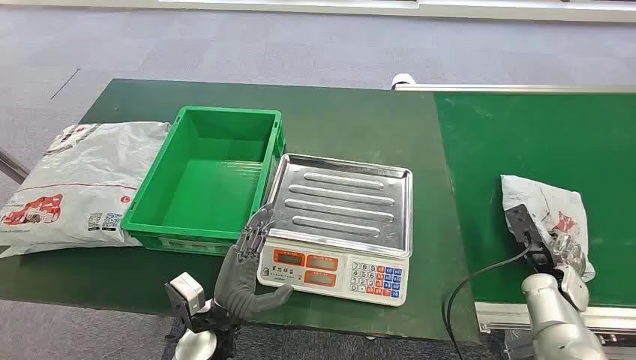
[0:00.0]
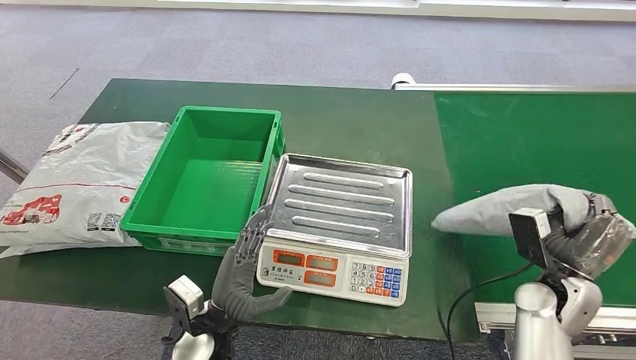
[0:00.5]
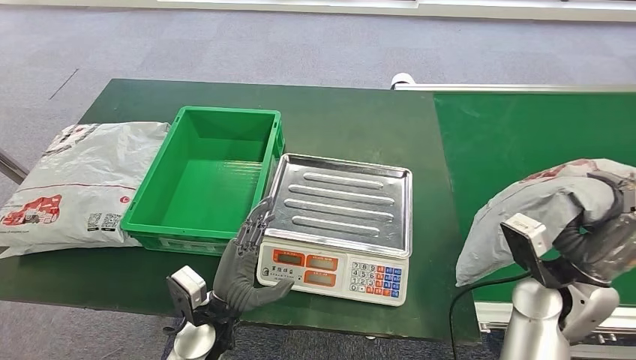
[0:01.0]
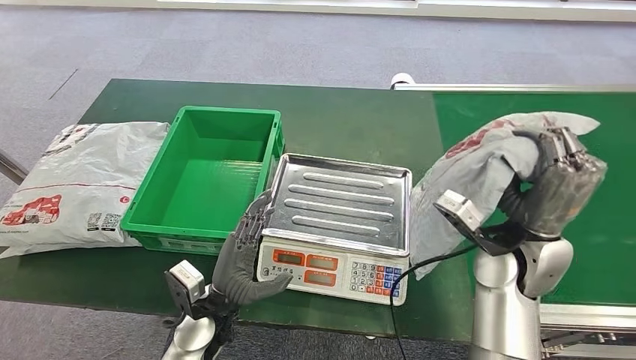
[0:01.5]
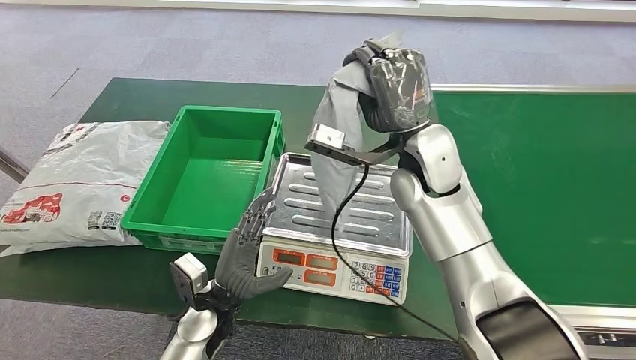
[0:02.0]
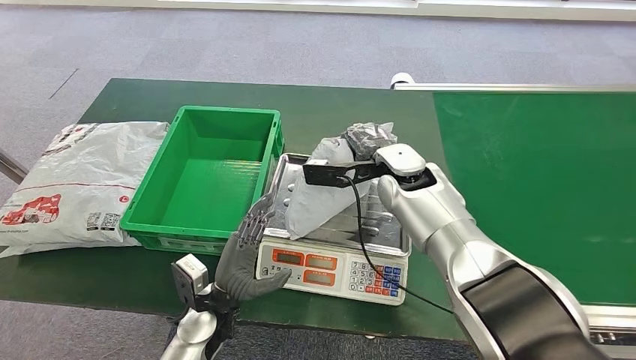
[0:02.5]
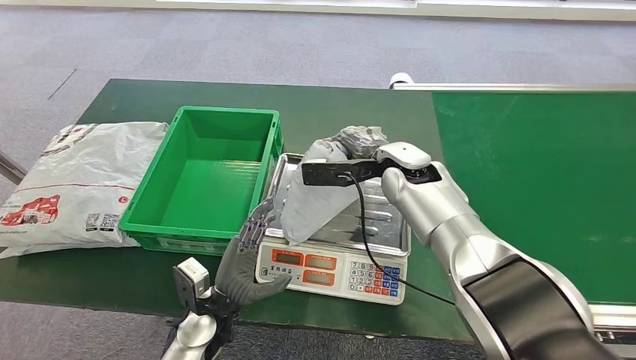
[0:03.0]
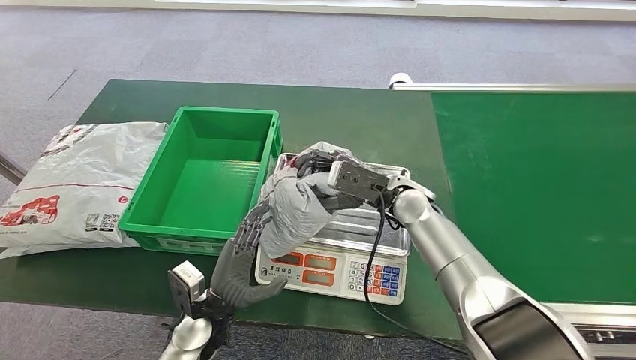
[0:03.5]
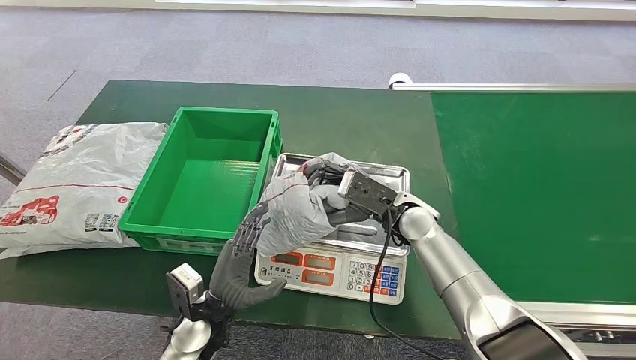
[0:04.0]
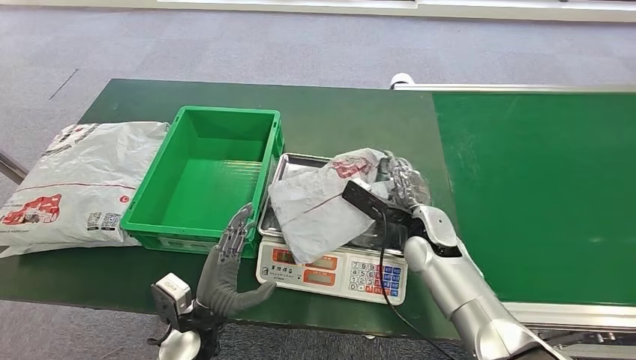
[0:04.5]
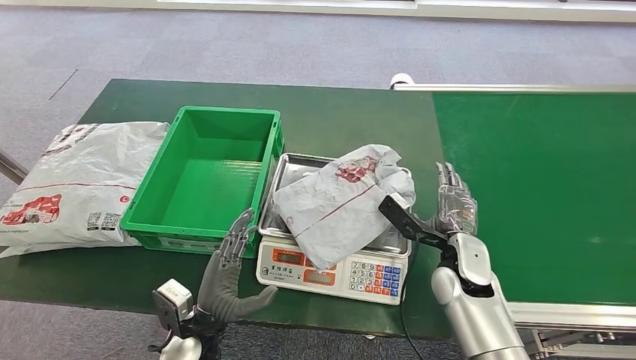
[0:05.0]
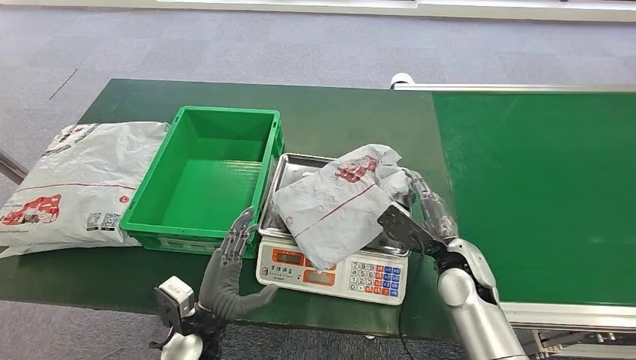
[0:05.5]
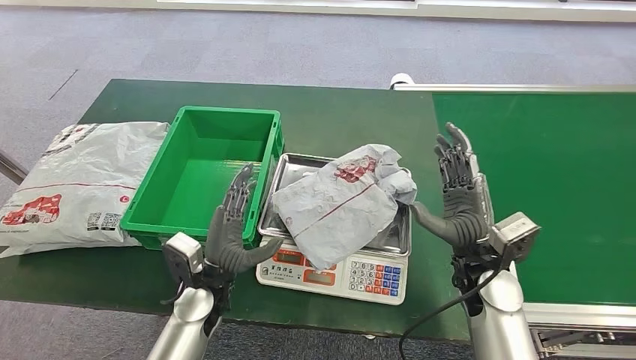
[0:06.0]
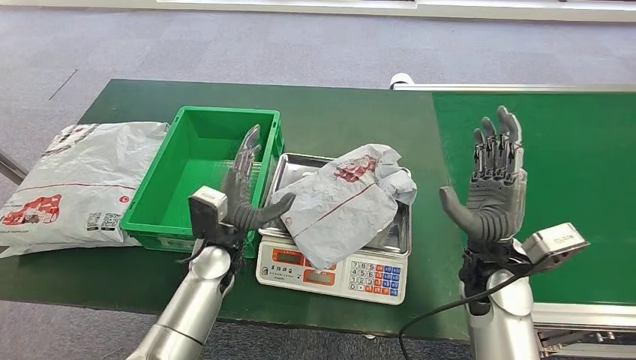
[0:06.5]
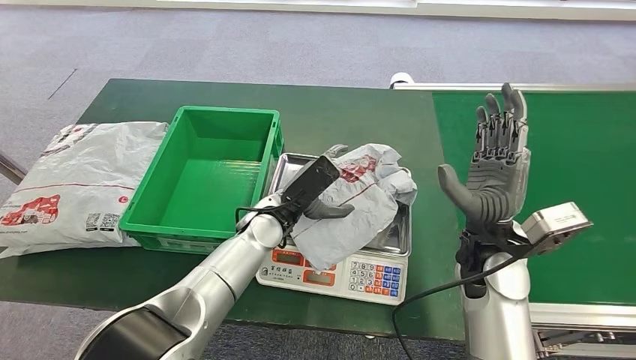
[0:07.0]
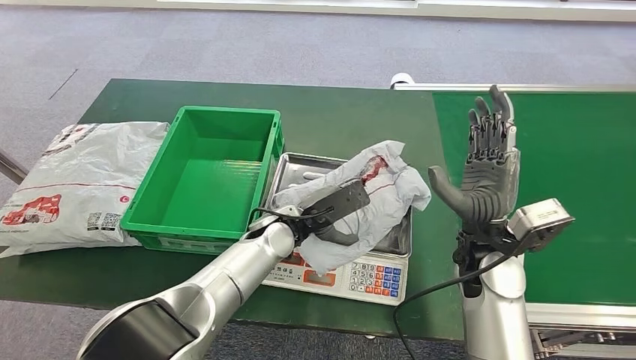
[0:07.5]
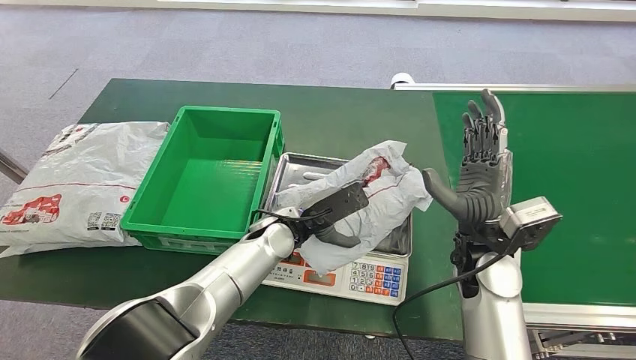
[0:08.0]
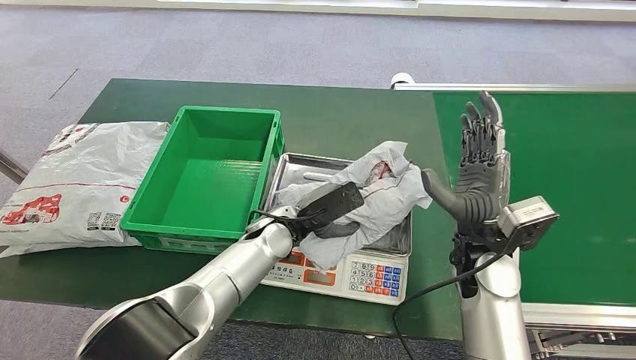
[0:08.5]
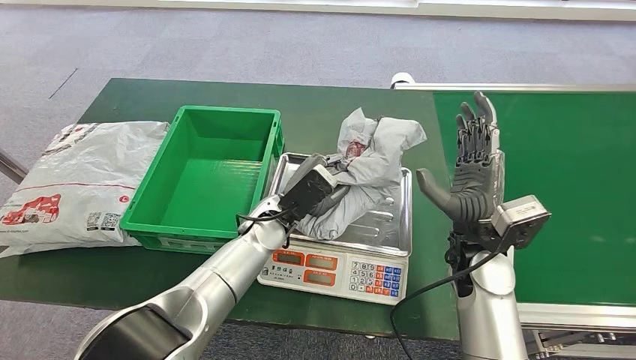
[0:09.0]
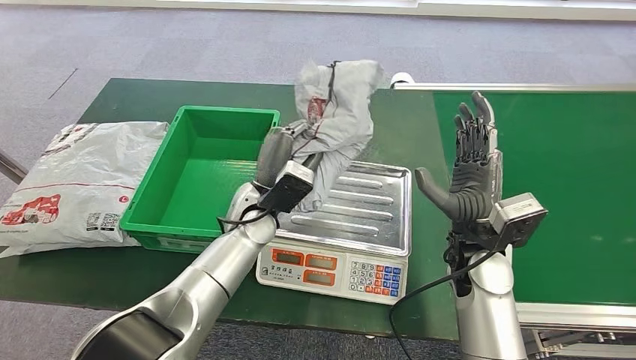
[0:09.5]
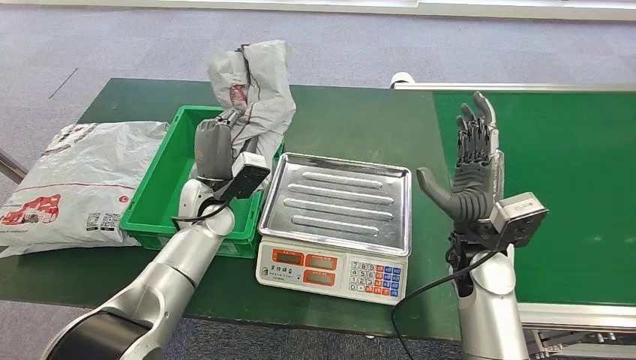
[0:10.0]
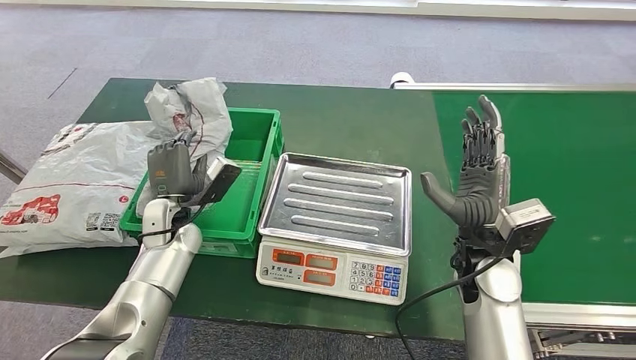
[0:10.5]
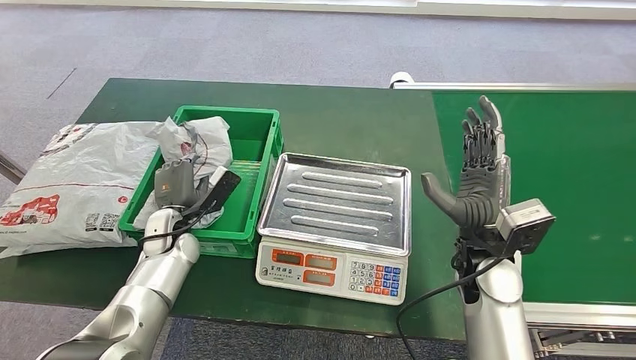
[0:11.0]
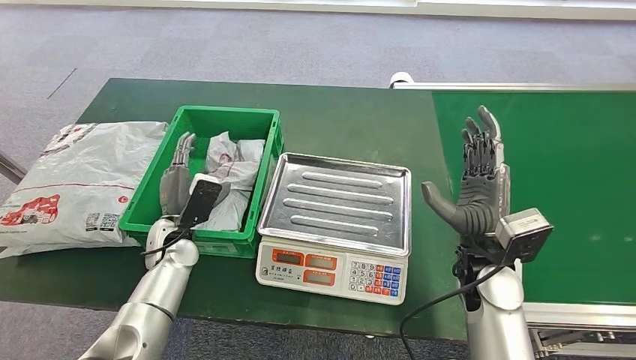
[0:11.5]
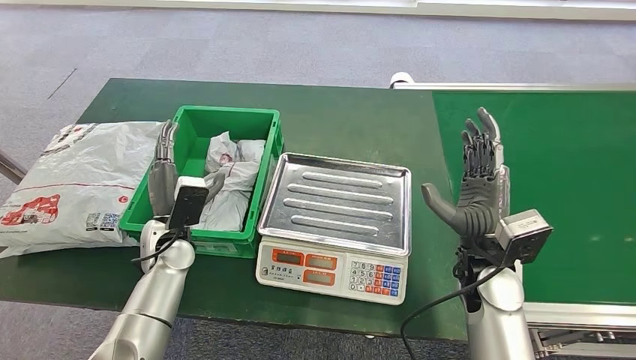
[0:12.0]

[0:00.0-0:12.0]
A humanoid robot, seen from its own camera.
Step, 0:00.0 to 0:01.0: Take the parcel off the conveyor belt.
Step, 0:01.5 to 0:05.5: Place the parcel onto the inbound machine.
Step, 0:06.0 to 0:10.0: Pick up the parcel from the inbound machine.
0:04.0 to 0:06.0: The right hand shifts about 15 cm to the right and backward; the left hand moves roughly 5 cm.
0:06.0 to 0:08.0: The left hand heads to the right and forward, covering approximately 15 cm.
0:08.0 to 0:10.0: The left hand heads to the left, covering approximately 15 cm.
0:10.0 to 0:12.0: The left hand moves to the left, downward and backward, approximately 10 cm.

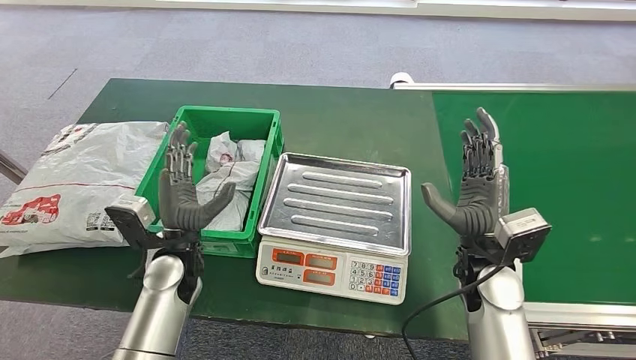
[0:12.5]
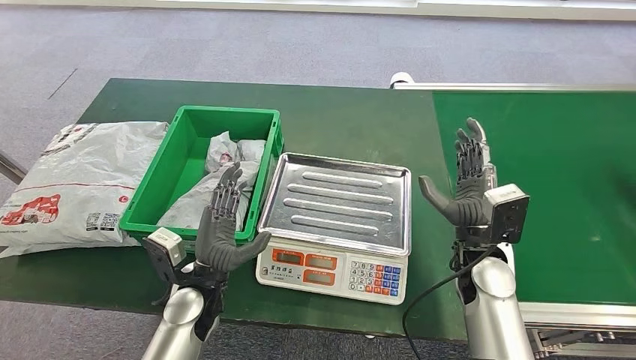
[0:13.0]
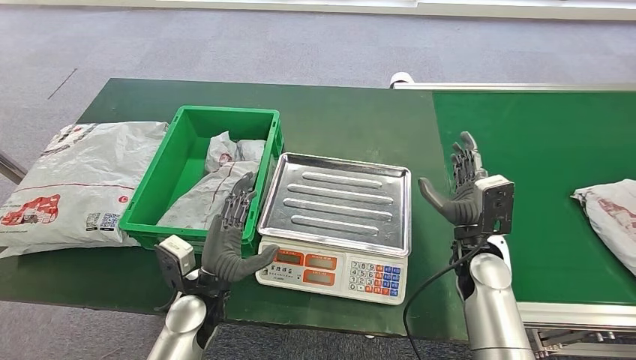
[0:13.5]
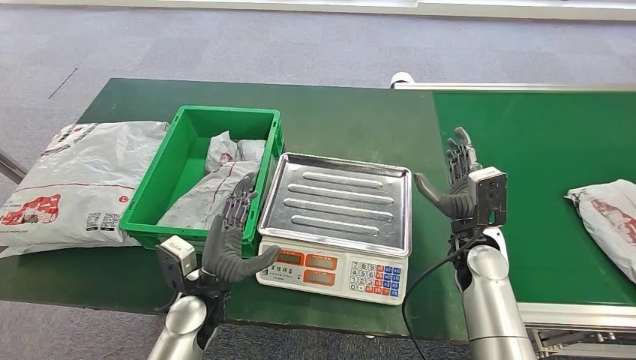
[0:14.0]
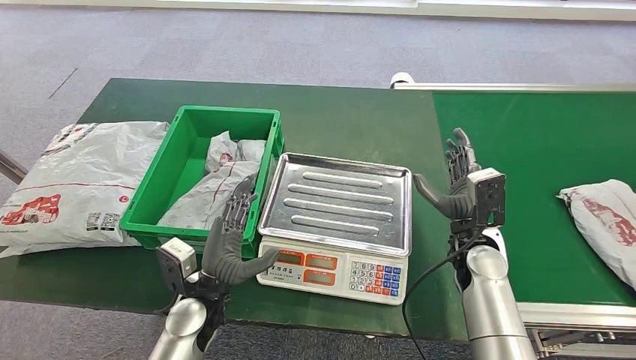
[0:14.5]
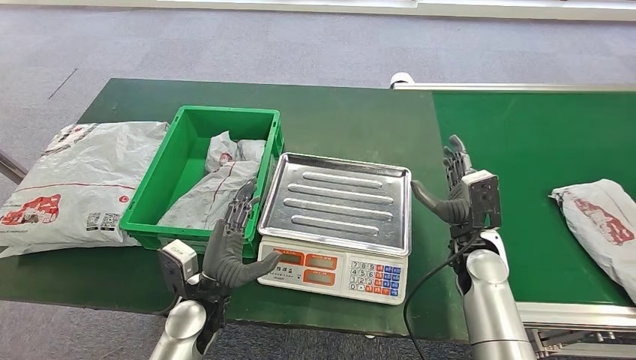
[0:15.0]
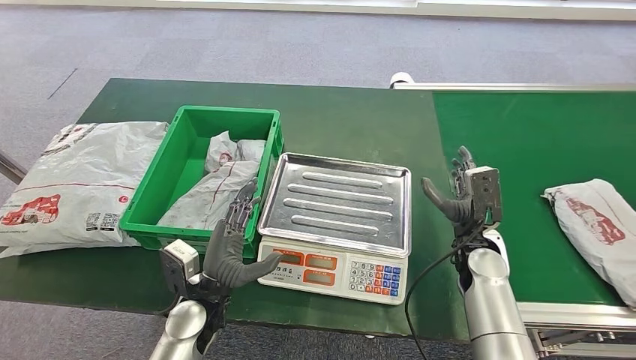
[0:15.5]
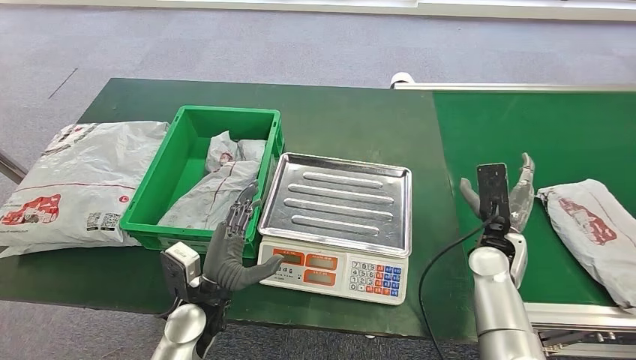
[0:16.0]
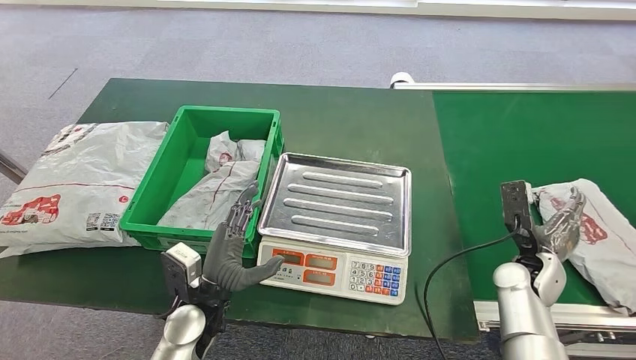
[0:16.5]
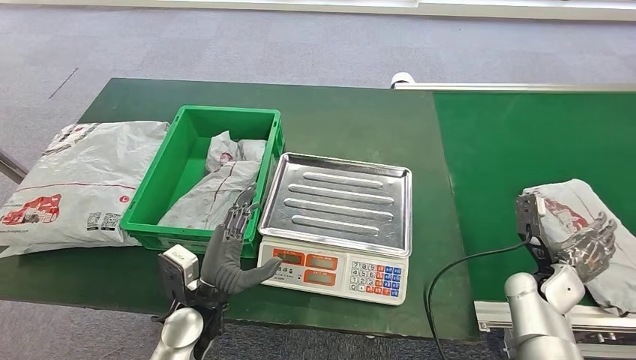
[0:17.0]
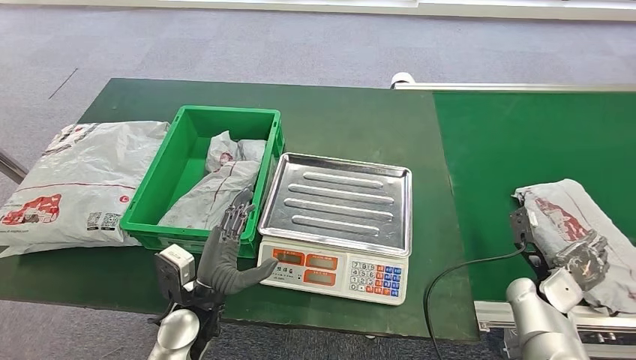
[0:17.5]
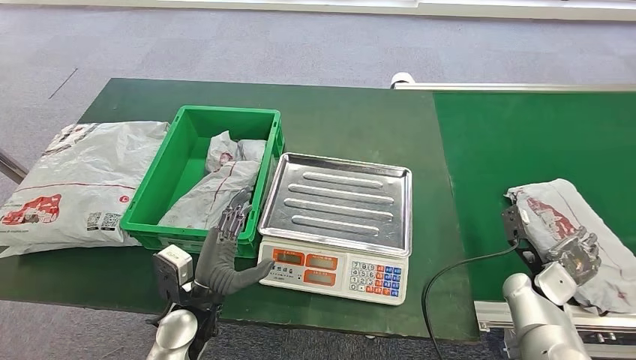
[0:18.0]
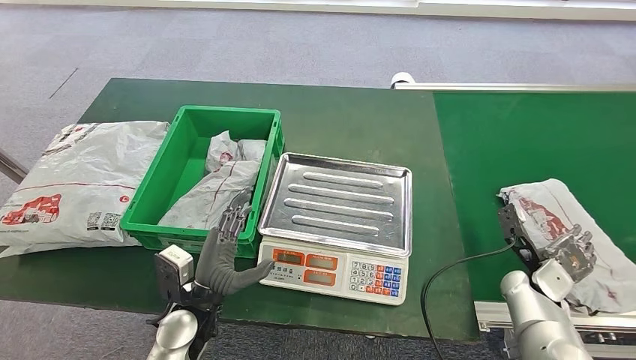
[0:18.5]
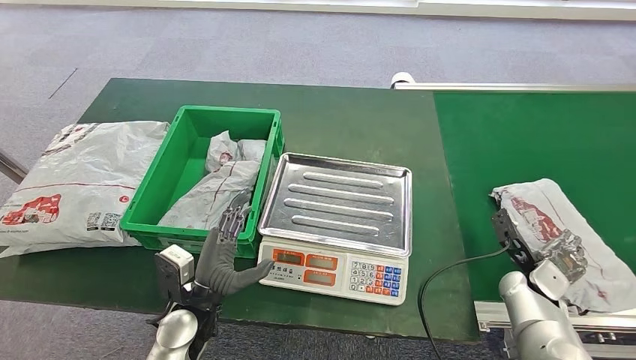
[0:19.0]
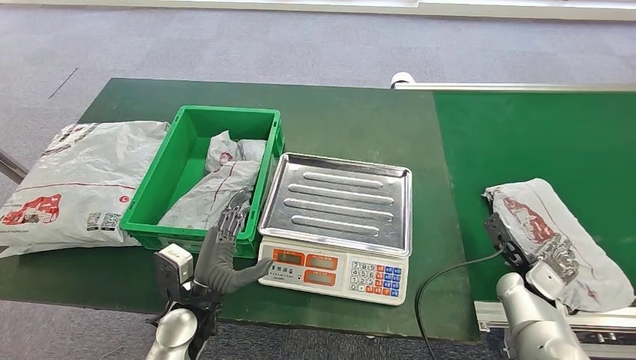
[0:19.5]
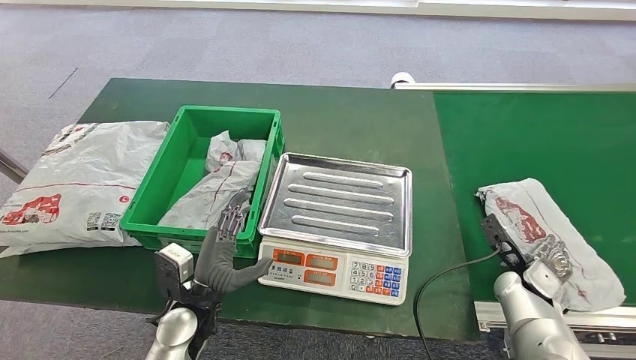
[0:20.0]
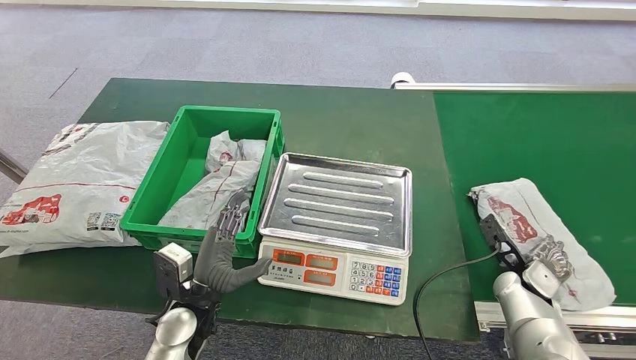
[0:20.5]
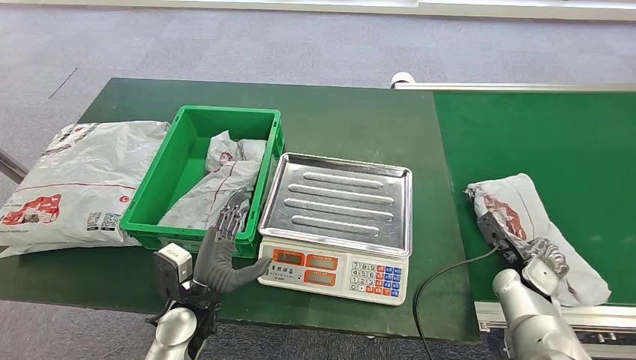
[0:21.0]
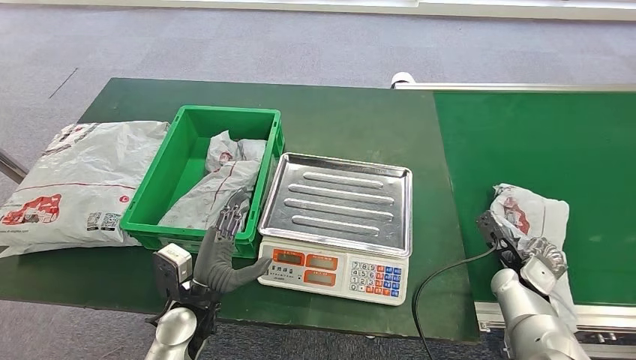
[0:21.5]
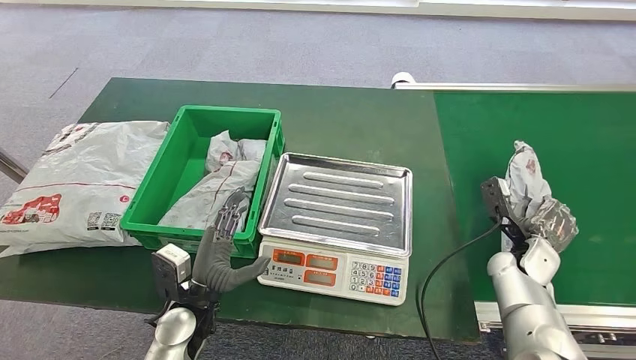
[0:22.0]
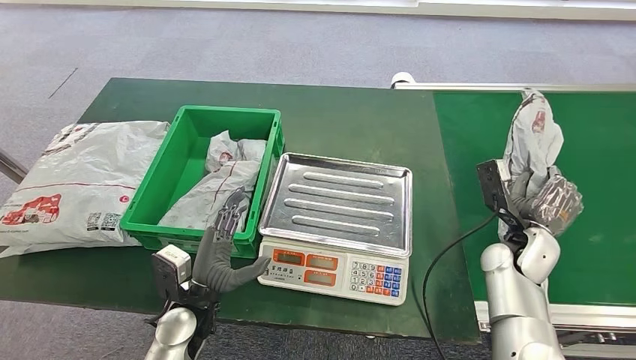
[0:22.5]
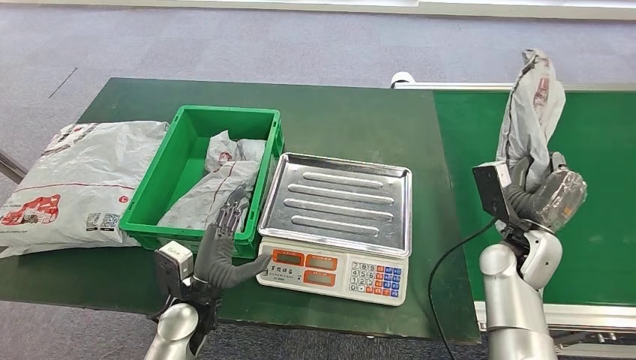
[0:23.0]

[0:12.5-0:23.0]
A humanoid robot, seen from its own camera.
Step, 0:21.5 to 0:22.5: Pick up the parcel from the conveyor belt.
0:12.5 to 0:14.5: The left hand moves backward, about 5 cm. The right hand shifts approximately 5 cm downward.
0:14.5 to 0:16.5: The right hand moves to the right, roughly 10 cm.
0:16.5 to 0:19.0: The right hand shifts by some 5 cm.
0:19.0 to 0:21.0: There are only small adjustments of the hands.
0:21.0 to 0:23.0: The right hand is displaced upward and to the left by roughly 10 cm.
